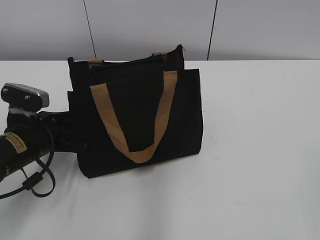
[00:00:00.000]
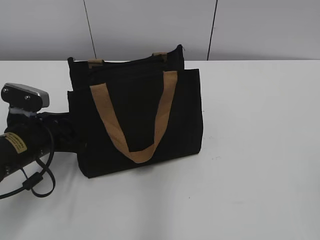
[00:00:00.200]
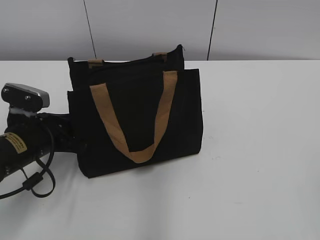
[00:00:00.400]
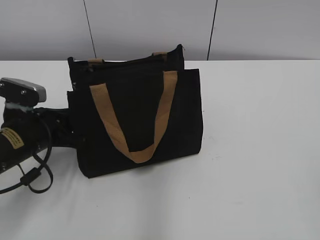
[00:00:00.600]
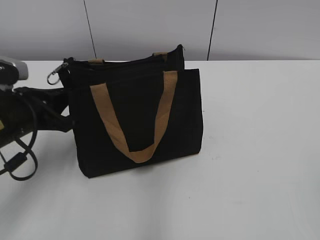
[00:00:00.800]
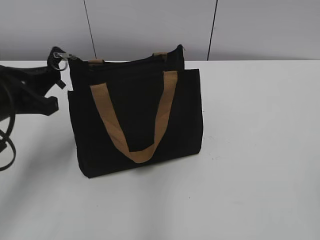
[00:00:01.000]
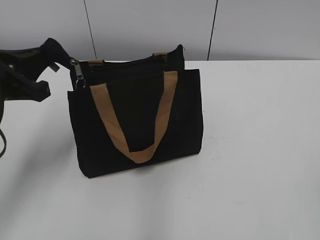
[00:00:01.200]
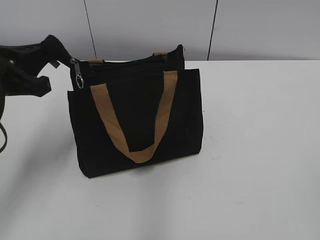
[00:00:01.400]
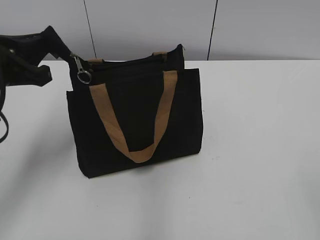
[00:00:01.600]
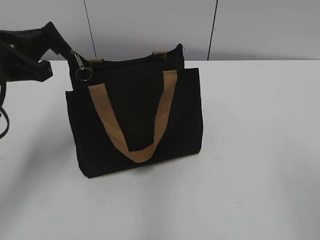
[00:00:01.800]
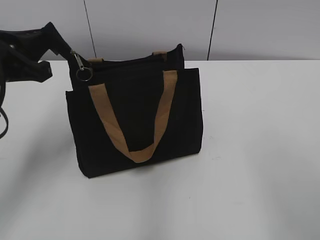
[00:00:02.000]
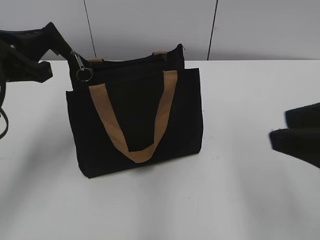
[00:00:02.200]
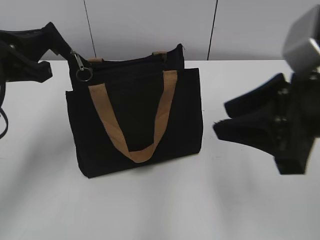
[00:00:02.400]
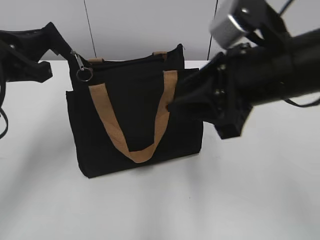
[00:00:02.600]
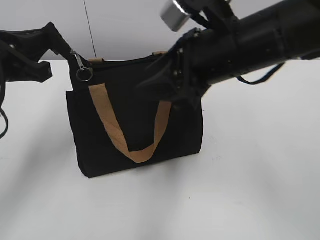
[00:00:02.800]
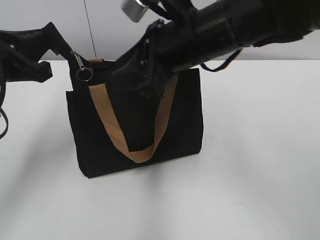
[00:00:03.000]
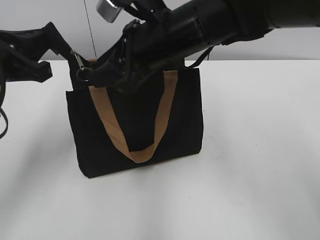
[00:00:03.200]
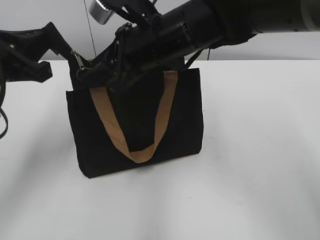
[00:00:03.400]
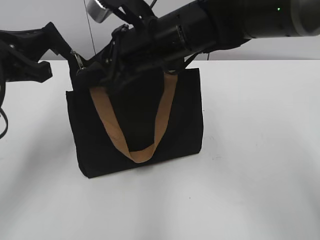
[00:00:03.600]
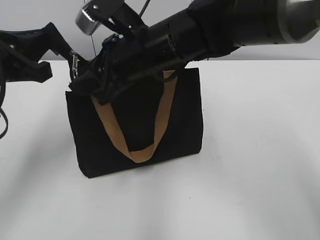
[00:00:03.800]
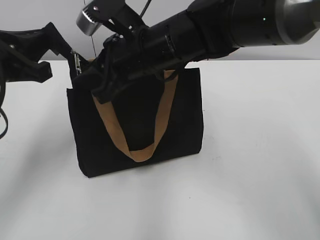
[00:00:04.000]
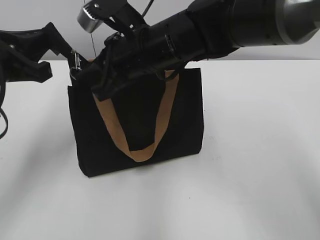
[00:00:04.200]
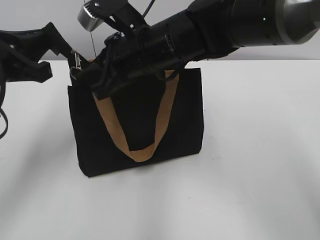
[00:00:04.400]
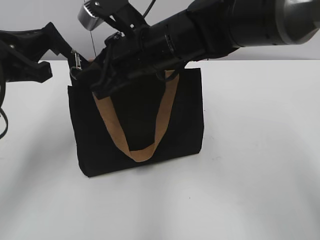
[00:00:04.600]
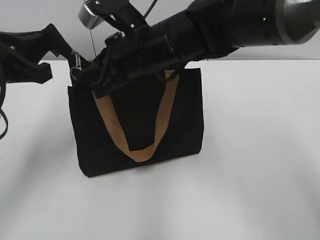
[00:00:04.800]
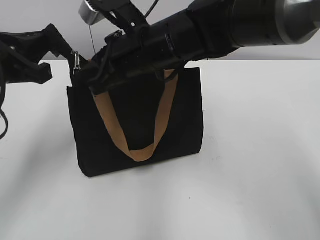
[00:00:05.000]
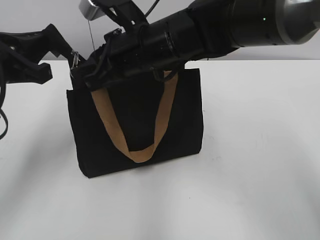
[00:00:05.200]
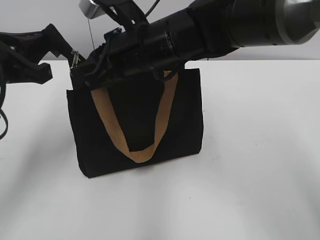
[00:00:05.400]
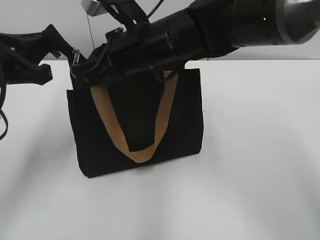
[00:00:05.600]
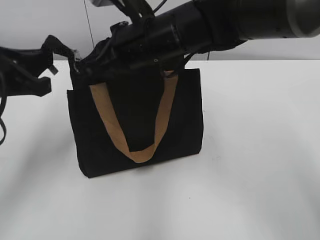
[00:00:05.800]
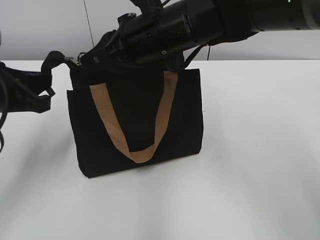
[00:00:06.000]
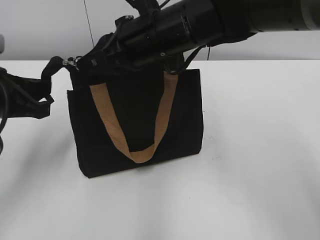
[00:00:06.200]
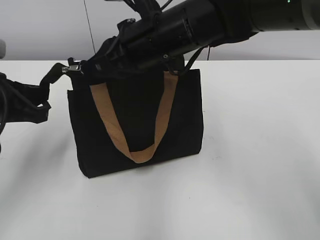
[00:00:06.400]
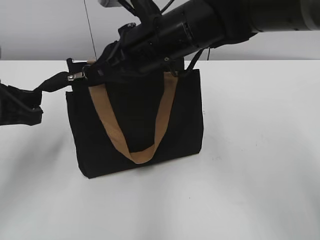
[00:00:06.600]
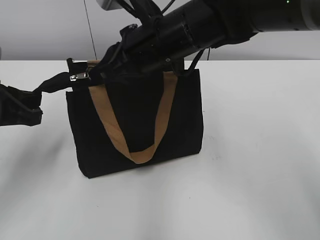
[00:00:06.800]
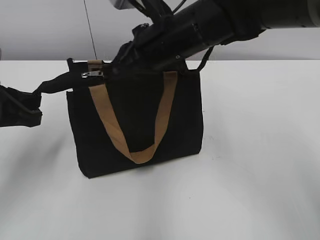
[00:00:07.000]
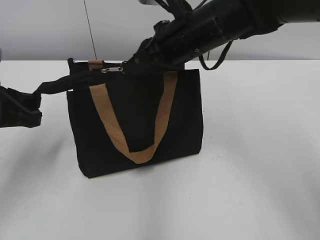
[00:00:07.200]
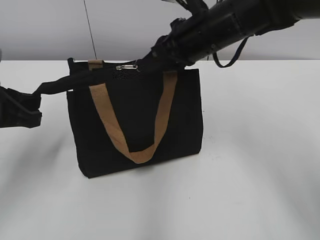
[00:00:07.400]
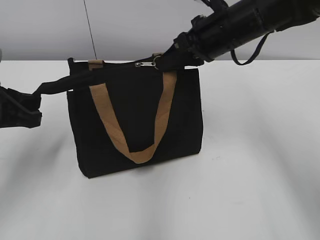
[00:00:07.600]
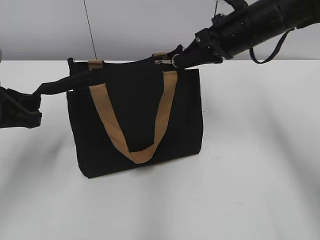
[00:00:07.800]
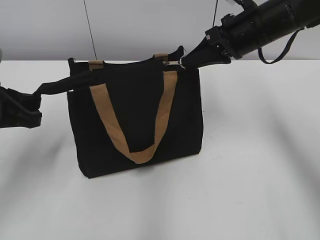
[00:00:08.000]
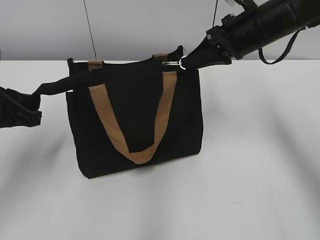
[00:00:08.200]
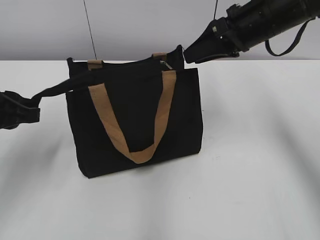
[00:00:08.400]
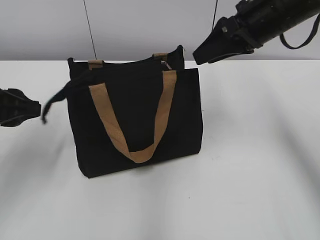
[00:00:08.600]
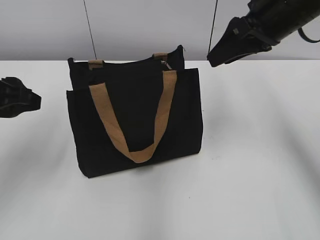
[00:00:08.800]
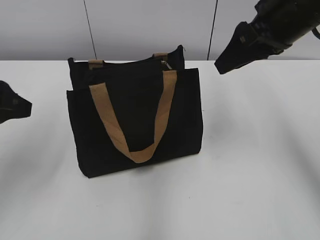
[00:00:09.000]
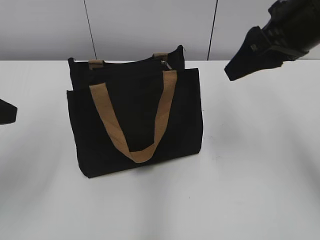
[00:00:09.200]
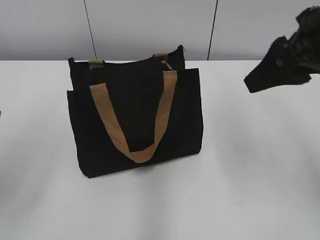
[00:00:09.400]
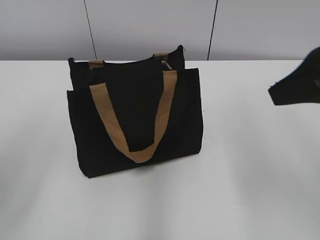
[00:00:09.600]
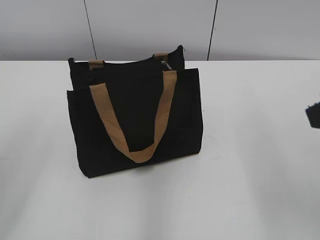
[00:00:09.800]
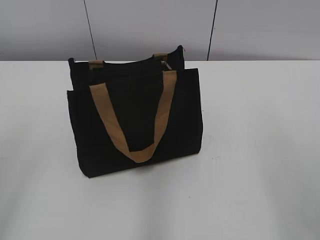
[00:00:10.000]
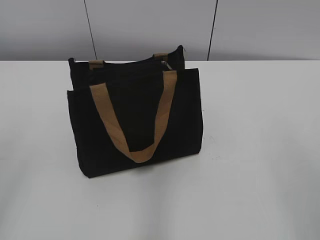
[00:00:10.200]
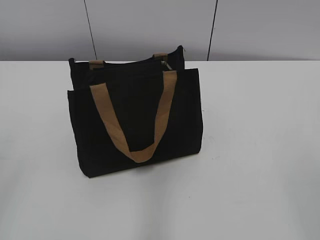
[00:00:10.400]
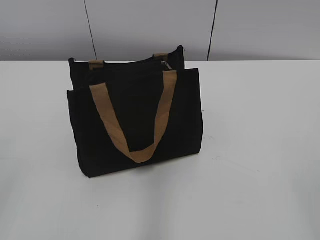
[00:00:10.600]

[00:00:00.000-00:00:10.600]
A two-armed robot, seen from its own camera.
Step, 00:00:00.000 to 00:00:08.200: Zip up the bag with your right hand.
Step, 00:00:08.400 to 00:00:08.600: Grab the zipper with your left hand.
00:00:00.000 to 00:00:01.600: The left gripper goes approximately 15 cm upward, and closes its fingers.
00:00:01.600 to 00:00:03.000: The right gripper shifts roughly 35 cm forward and to the left.
00:00:03.000 to 00:00:04.600: The right gripper shifts about 5 cm to the left, and closes its fingers.
00:00:04.600 to 00:00:06.000: The grippers move only a little.
00:00:06.000 to 00:00:07.600: The right gripper moves to the right, about 10 cm.
00:00:07.600 to 00:00:09.000: The right gripper is displaced to the right and upward by roughly 10 cm, and opens. The left gripper opens its fingers.
00:00:09.000 to 00:00:10.600: The left gripper goes about 20 cm backward; the right gripper moves backward, roughly 35 cm.
